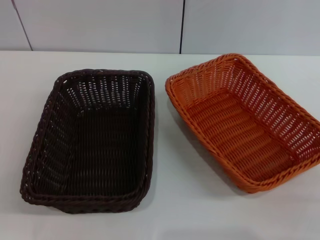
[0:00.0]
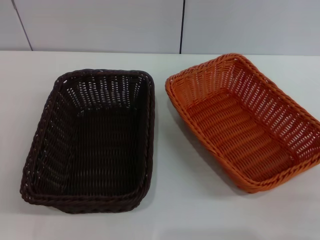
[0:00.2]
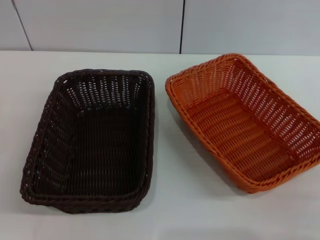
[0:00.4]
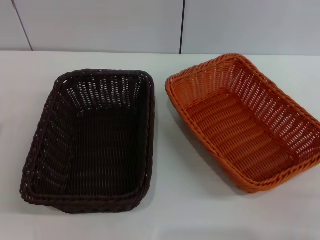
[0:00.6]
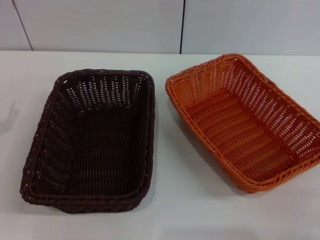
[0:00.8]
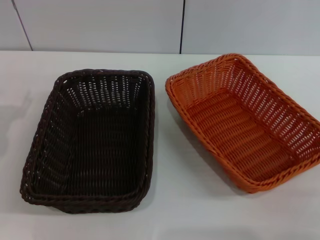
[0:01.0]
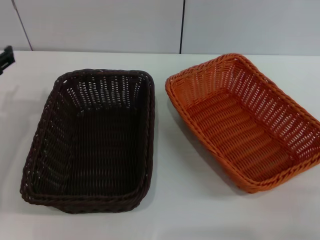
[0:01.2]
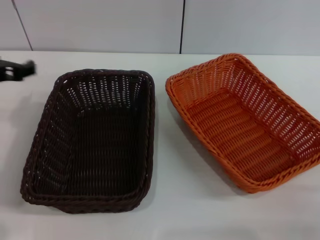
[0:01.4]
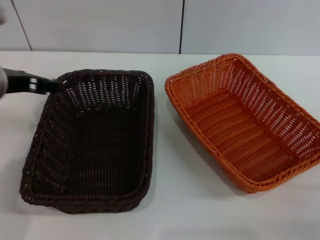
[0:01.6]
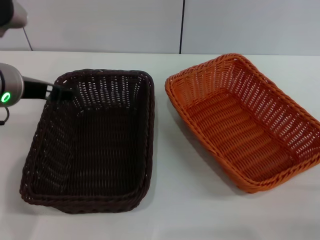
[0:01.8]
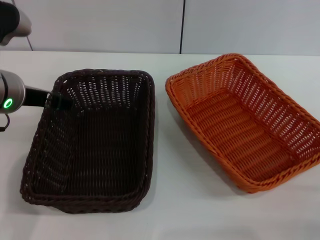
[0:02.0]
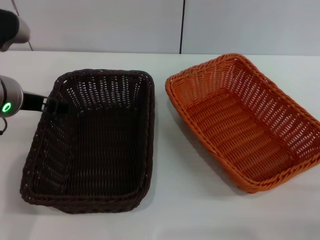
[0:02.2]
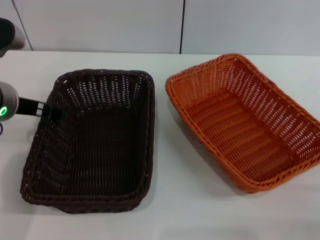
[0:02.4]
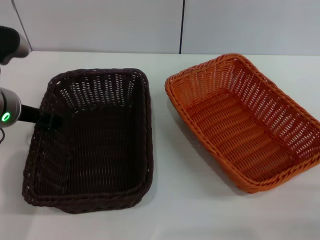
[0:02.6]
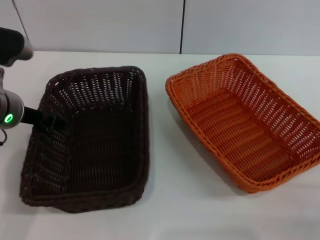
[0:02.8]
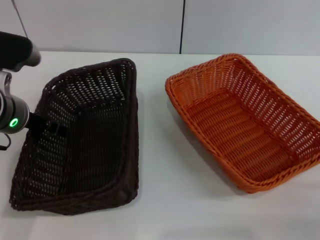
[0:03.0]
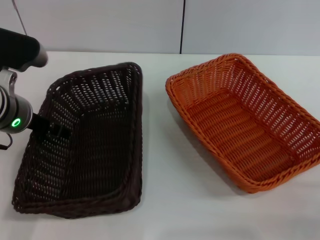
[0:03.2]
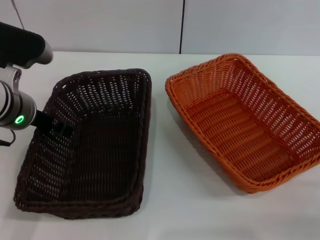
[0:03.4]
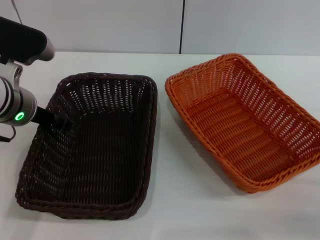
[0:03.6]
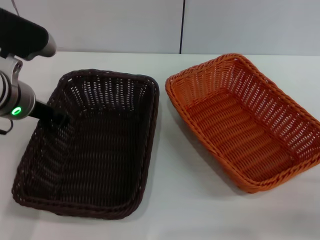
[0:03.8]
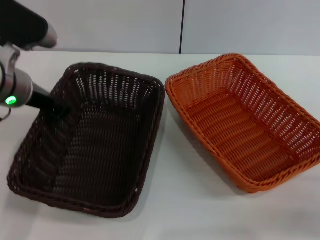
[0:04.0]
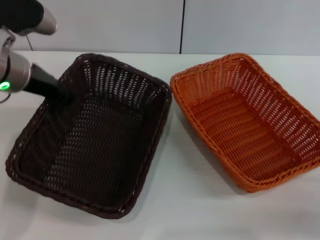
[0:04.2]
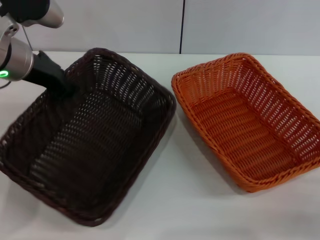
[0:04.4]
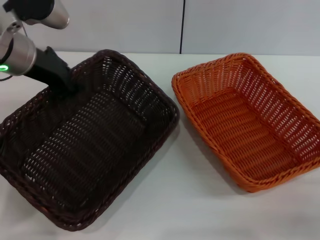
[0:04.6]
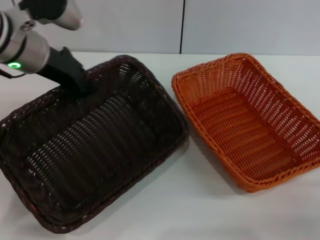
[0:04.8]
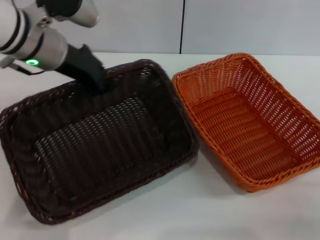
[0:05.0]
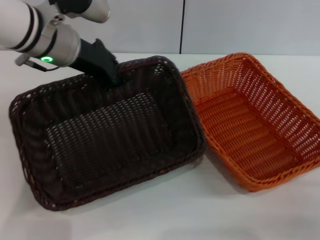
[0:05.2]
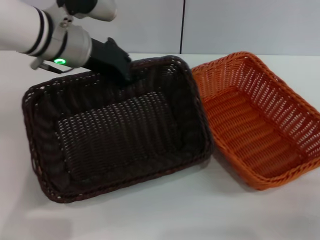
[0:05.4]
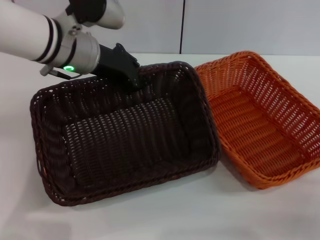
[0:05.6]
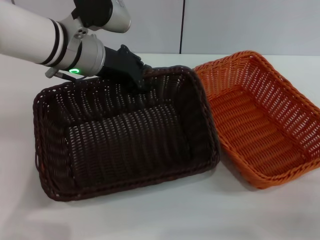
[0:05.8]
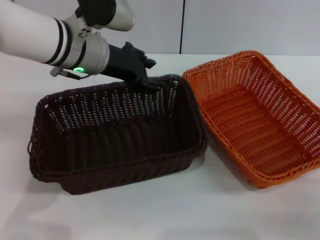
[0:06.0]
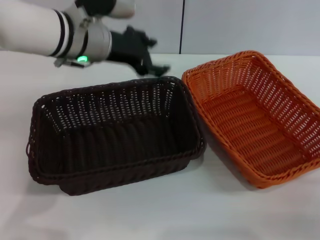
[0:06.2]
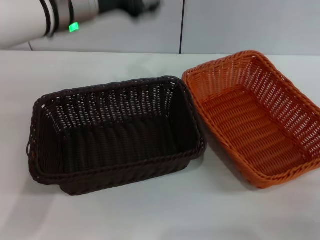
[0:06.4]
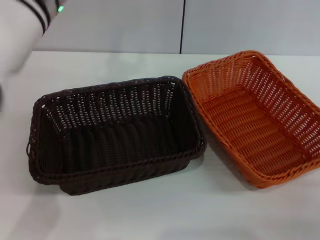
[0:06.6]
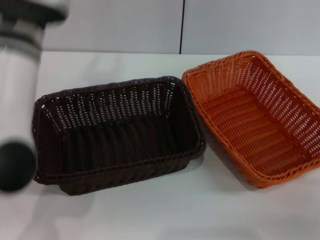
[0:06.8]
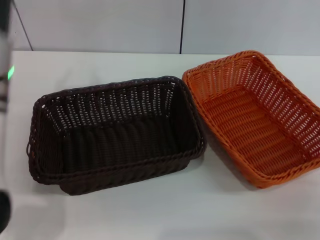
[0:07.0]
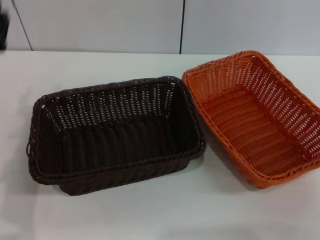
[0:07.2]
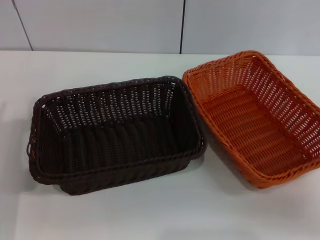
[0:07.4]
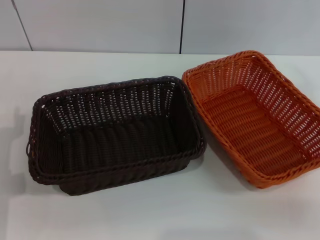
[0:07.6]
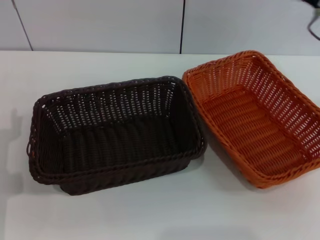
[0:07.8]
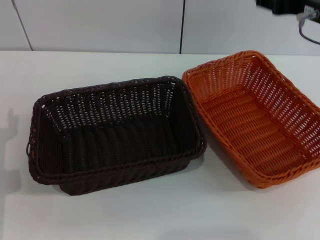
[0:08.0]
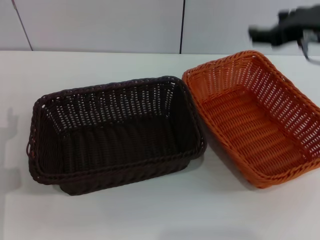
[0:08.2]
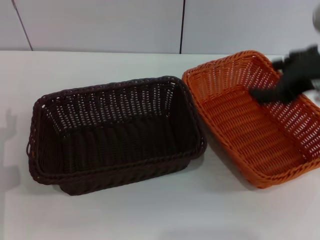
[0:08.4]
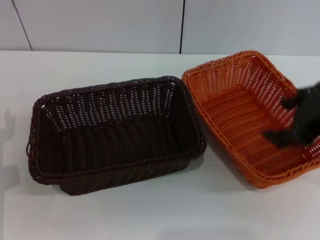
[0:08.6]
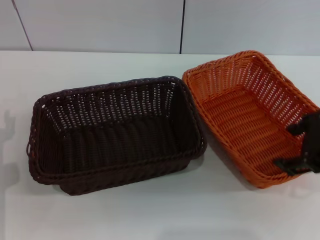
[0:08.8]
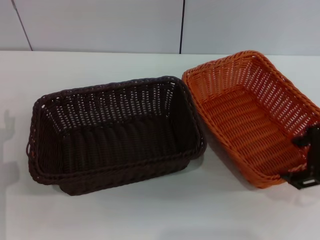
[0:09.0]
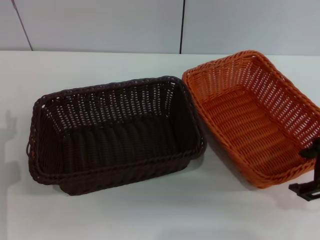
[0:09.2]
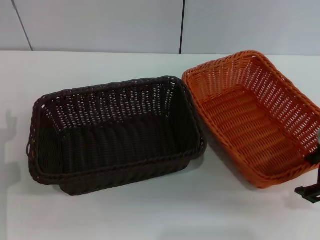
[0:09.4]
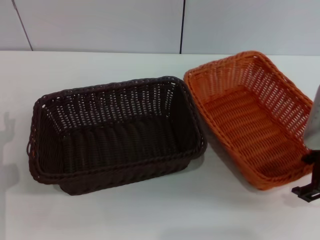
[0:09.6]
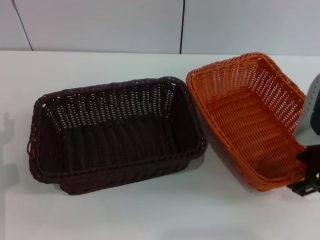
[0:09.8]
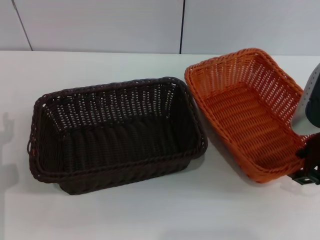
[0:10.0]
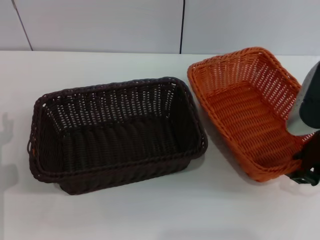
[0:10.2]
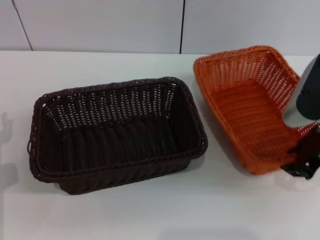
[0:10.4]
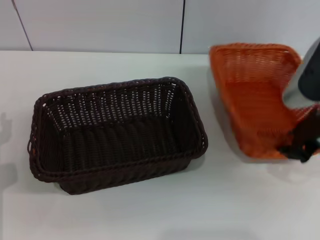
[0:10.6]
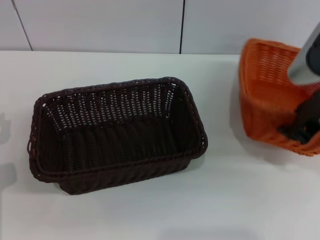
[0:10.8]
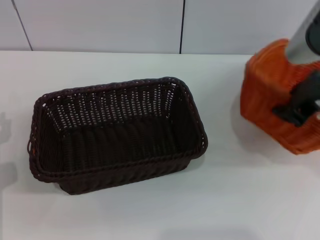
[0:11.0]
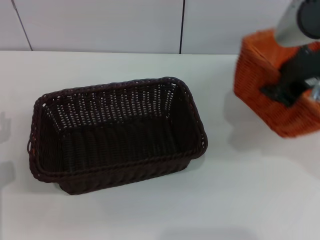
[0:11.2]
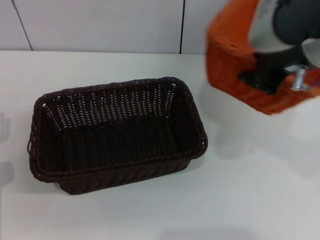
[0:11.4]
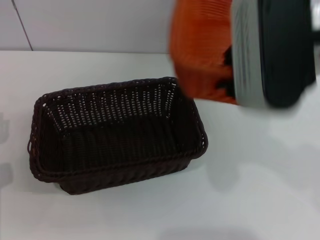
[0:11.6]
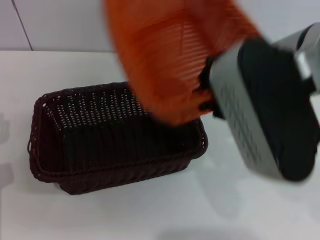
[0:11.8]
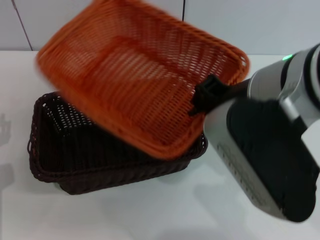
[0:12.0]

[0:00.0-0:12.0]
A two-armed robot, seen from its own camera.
Step, 0:00.0 to 0:04.2: Pick up the dark basket with the left gripper.
Step, 0:04.4 to 0:06.0: Place the dark basket in the center of view with the left gripper.
Step, 0:06.2 to 0:10.8: Pick up the light basket with the right gripper.
0:00.0 to 0:01.6: The left gripper travels upward, forward and to the right by some 25 cm.
0:01.6 to 0:03.0: The left gripper changes place by about 5 cm.
0:03.0 to 0:04.4: The left gripper goes some 5 cm upward, and closes its fingers.
0:04.4 to 0:06.0: The left gripper moves to the right, some 10 cm.
0:06.0 to 0:07.6: The left gripper is displaced to the left, backward and downward by roughly 25 cm, and opens up; the right gripper travels forward and upward by about 15 cm.
0:07.6 to 0:09.0: The right gripper travels backward, upward and to the left by roughly 15 cm.
0:09.0 to 0:10.4: The right gripper heads downward, covering roughly 5 cm, and closes its fingers.
0:10.4 to 0:12.0: The right gripper heads to the left and upward, covering about 15 cm.

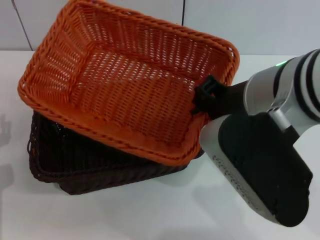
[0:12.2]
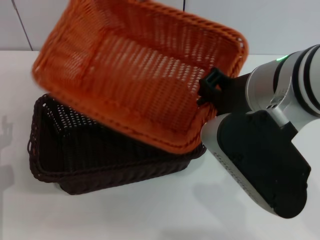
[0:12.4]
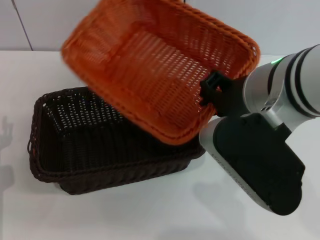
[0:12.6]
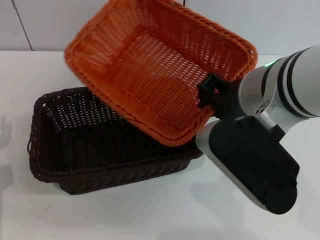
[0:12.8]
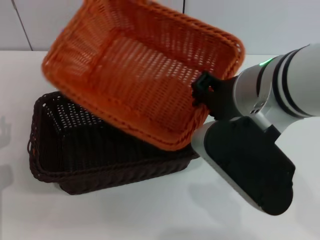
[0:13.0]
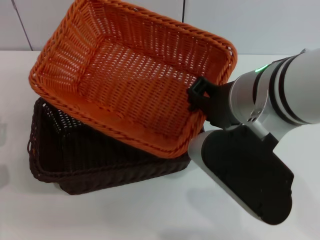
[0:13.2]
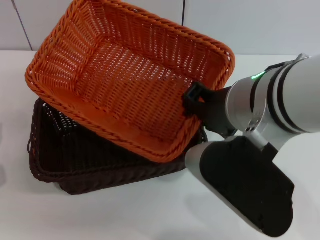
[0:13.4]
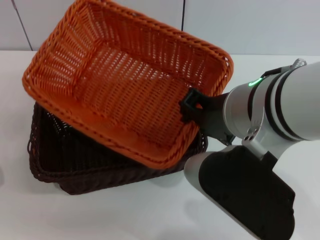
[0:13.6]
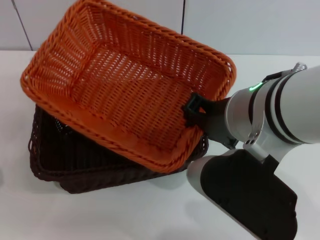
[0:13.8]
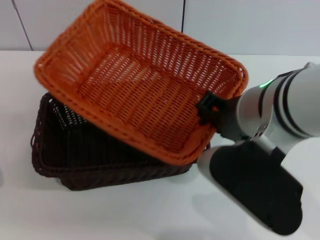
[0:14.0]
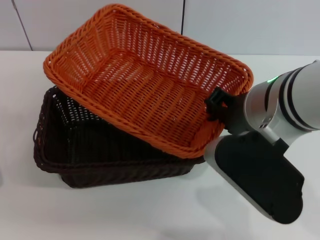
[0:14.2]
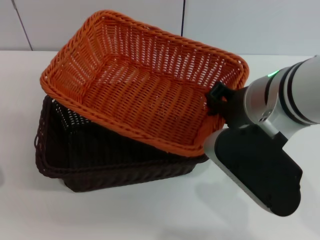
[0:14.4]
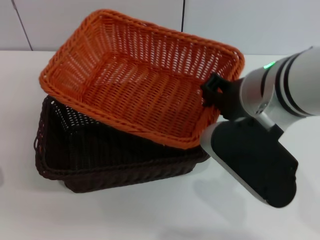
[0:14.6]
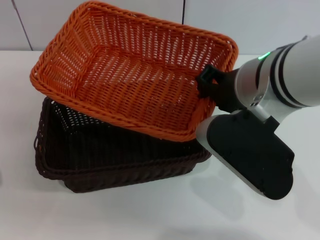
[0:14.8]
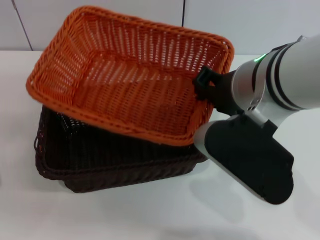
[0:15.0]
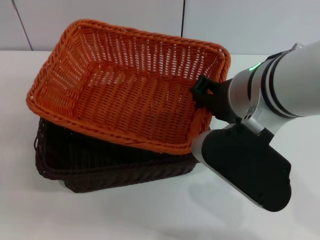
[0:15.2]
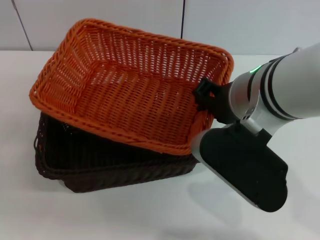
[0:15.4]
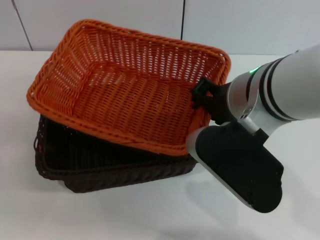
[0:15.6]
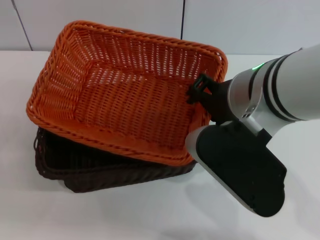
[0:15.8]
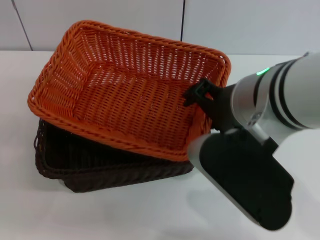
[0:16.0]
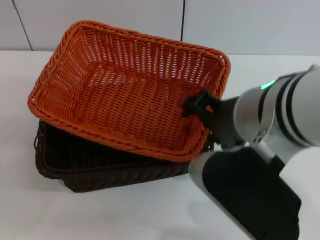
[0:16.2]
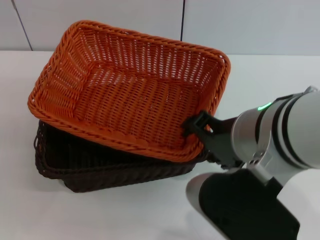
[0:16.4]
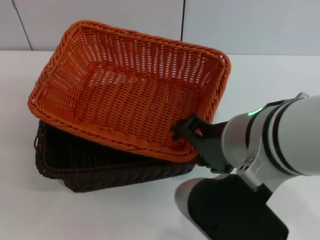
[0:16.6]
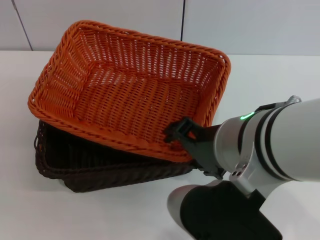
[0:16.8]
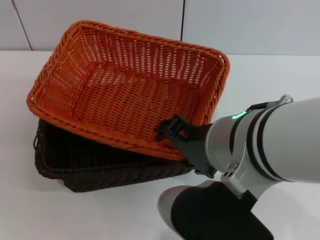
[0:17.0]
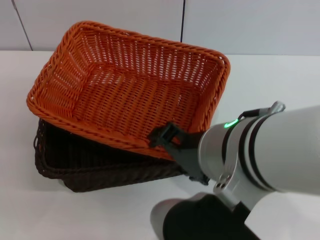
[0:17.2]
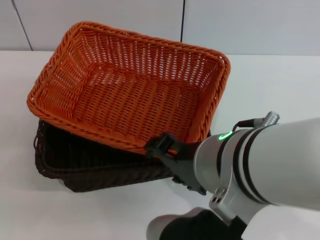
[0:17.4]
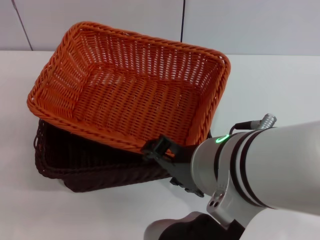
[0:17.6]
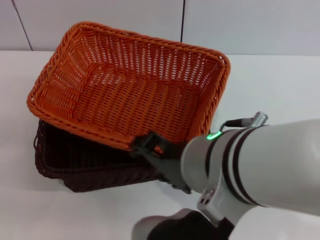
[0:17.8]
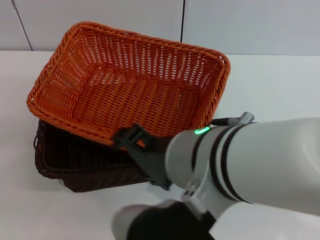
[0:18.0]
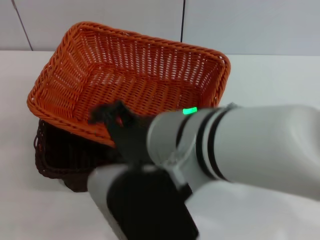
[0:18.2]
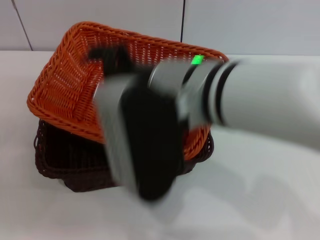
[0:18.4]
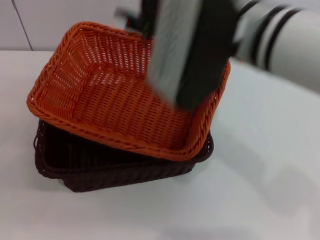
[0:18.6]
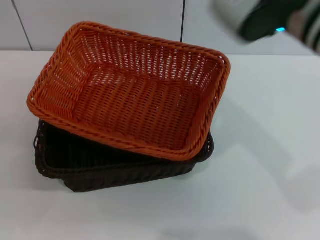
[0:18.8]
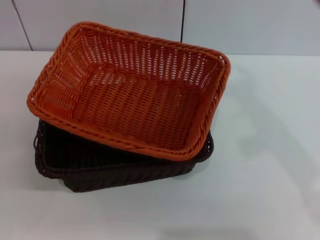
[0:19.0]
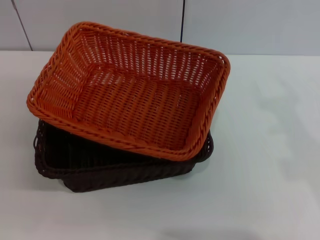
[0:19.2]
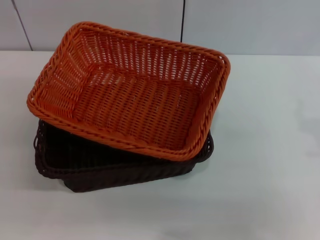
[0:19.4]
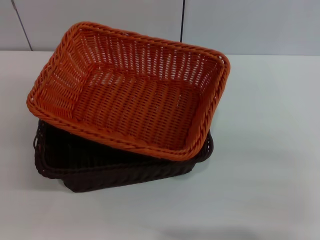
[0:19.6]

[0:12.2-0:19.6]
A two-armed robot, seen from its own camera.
Step, 0:12.2 to 0:17.2: Place the light basket on the dark basket with the right gripper.
0:15.2 to 0:16.6: The right gripper is displaced backward by roughly 5 cm, and opens its fingers.
0:16.6 to 0:18.2: The right gripper shifts approximately 5 cm to the left.
0:18.2 to 0:19.6: The right gripper shifts some 30 cm to the right and downward.

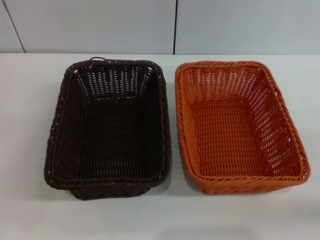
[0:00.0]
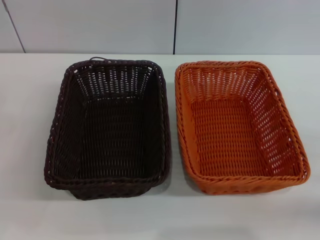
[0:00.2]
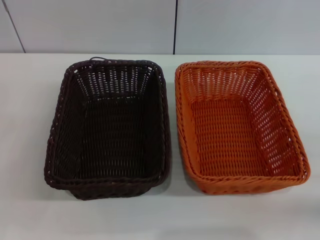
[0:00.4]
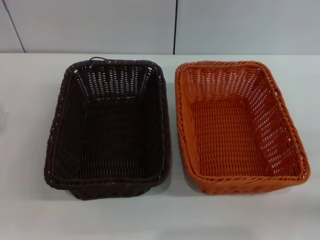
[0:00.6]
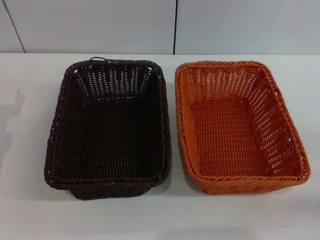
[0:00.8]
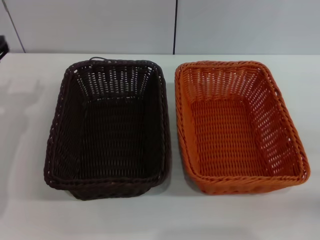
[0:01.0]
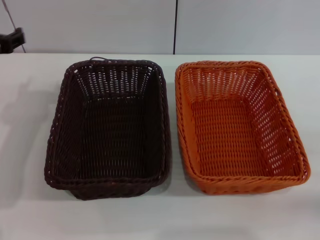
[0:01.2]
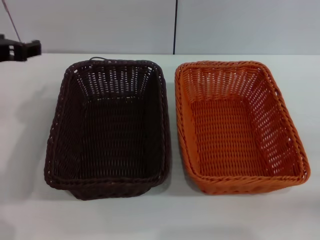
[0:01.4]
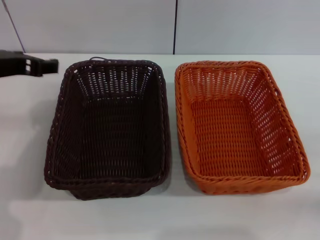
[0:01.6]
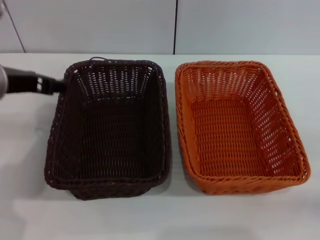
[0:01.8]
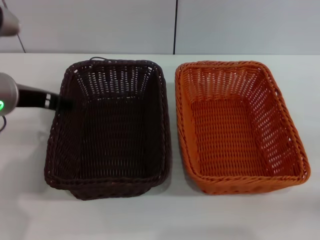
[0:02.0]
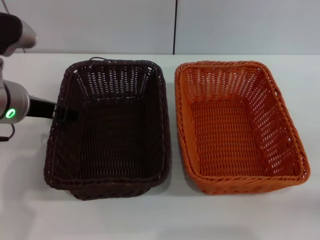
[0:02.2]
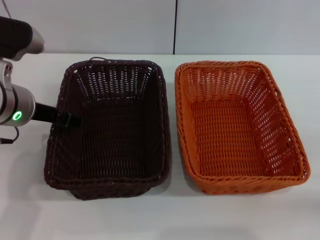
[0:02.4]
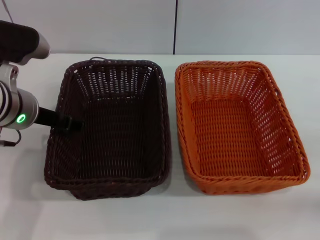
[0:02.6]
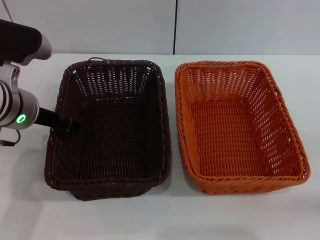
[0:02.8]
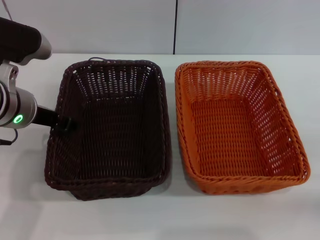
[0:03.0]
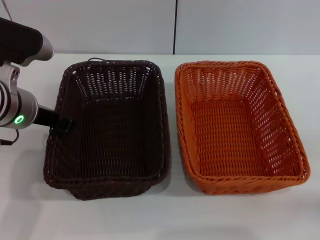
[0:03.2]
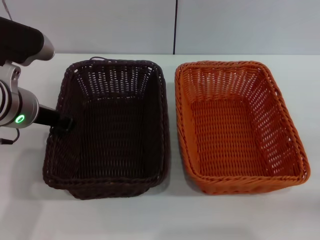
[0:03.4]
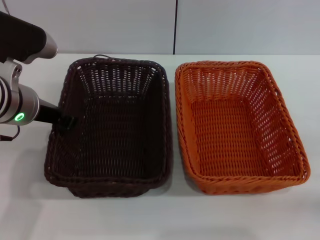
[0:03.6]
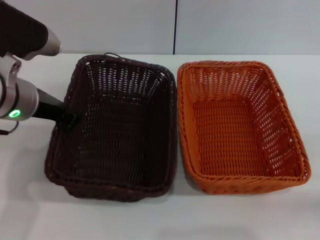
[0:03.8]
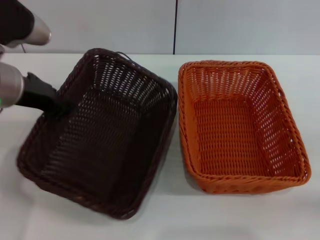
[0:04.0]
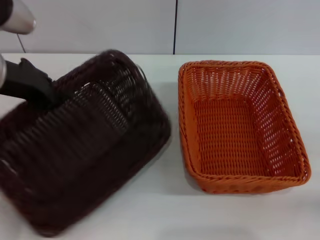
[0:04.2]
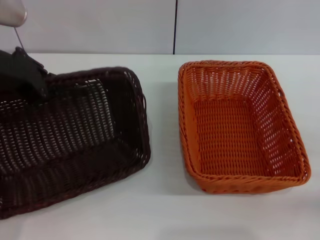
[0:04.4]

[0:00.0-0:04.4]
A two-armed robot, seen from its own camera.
Step, 0:00.0 to 0:03.6: Pick up the dark basket with the left gripper.
0:00.0 to 0:01.4: The left gripper shifts roughly 20 cm upward, to the right and forward.
0:01.4 to 0:03.0: The left gripper travels downward by roughly 5 cm.
0:03.0 to 0:04.4: The left gripper shifts some 10 cm upward, and closes up.
